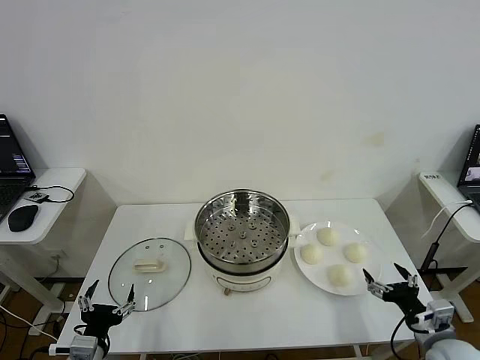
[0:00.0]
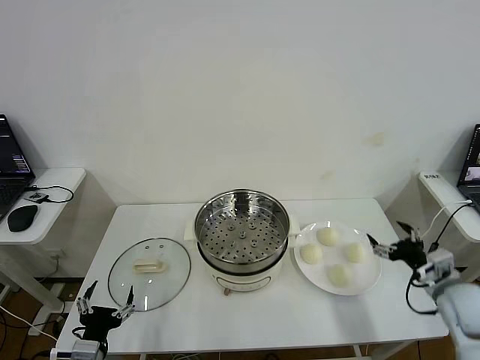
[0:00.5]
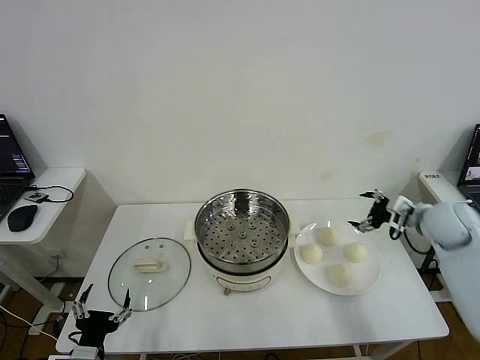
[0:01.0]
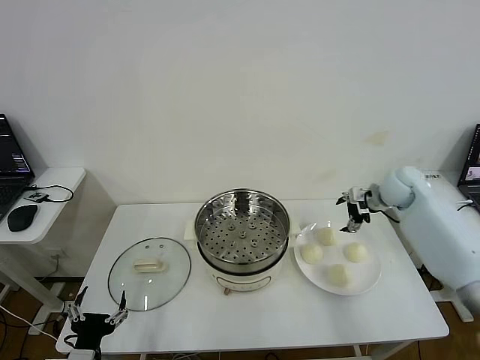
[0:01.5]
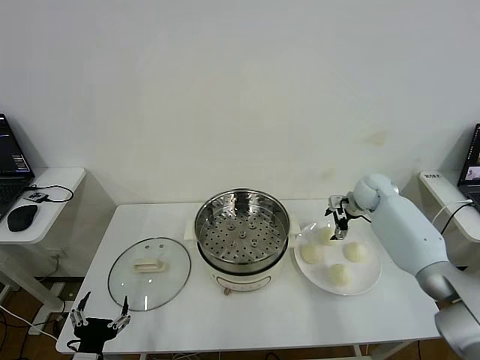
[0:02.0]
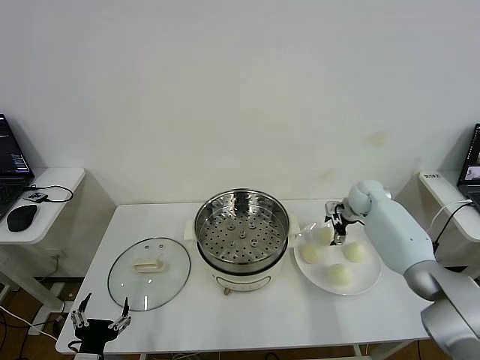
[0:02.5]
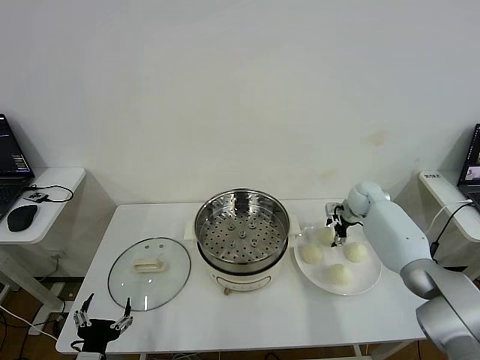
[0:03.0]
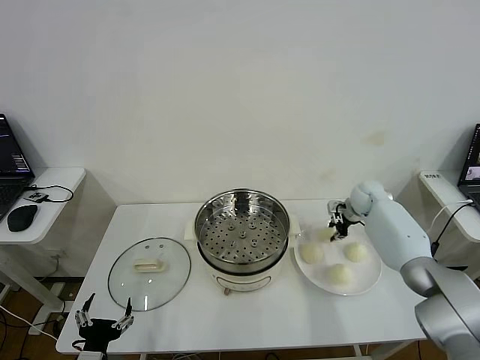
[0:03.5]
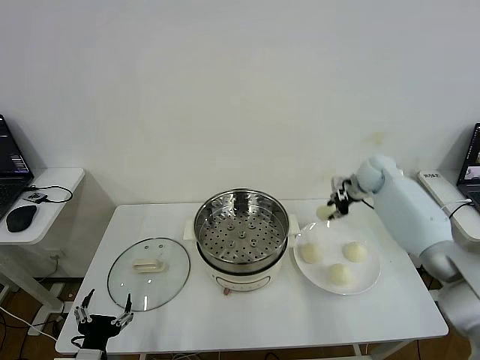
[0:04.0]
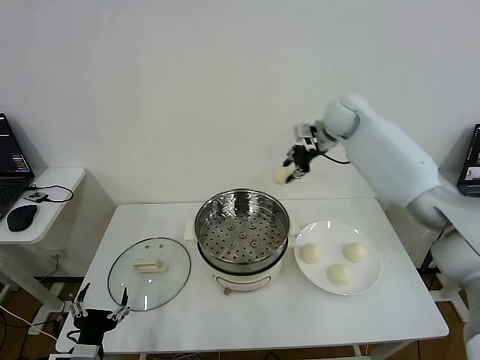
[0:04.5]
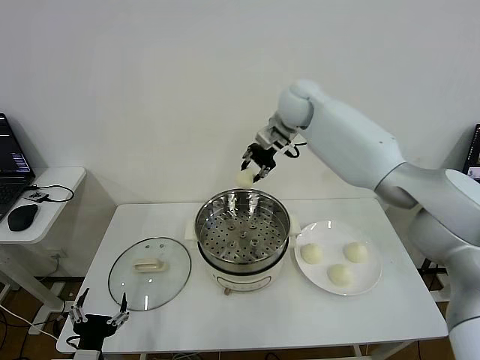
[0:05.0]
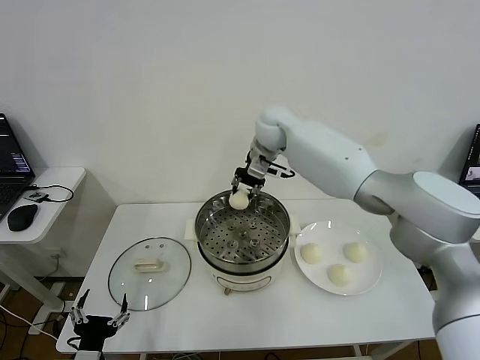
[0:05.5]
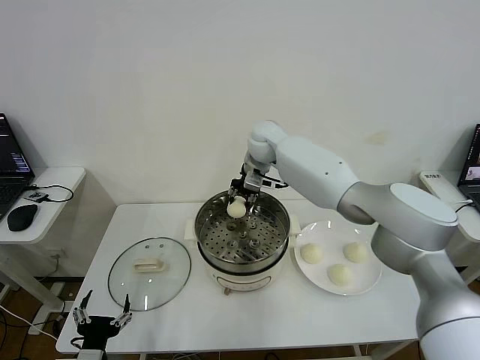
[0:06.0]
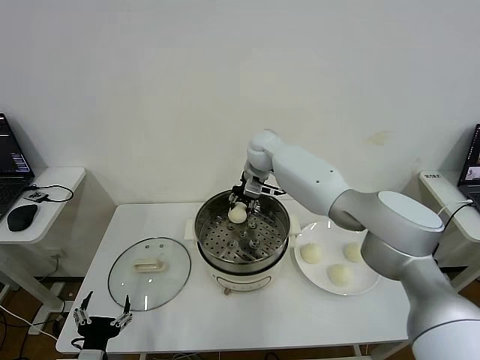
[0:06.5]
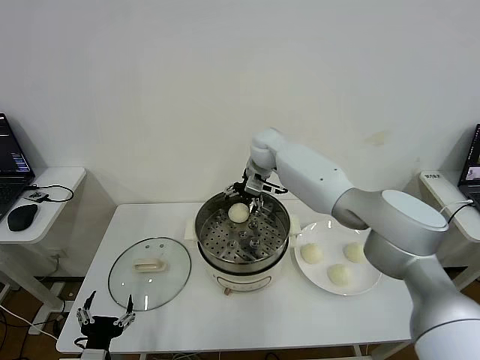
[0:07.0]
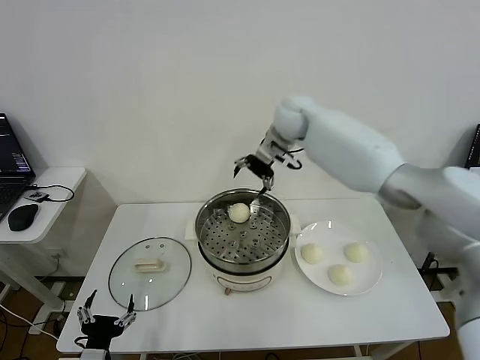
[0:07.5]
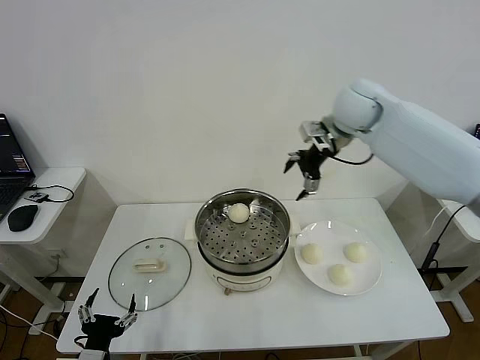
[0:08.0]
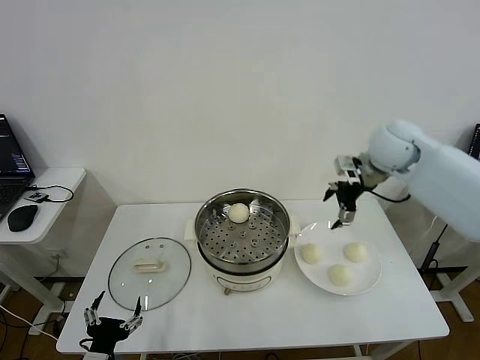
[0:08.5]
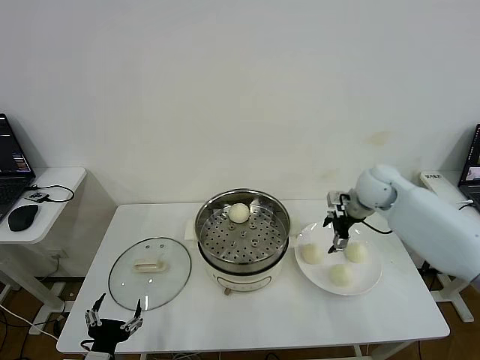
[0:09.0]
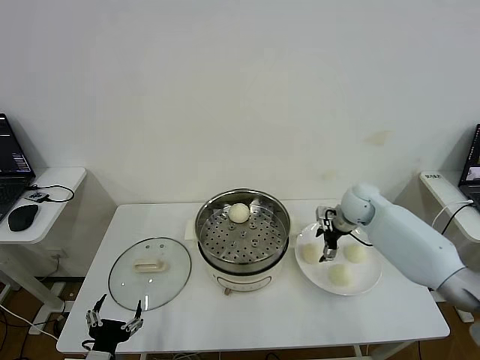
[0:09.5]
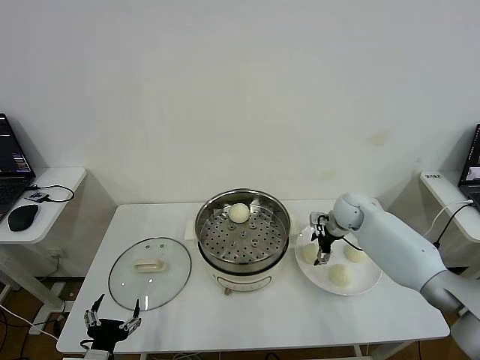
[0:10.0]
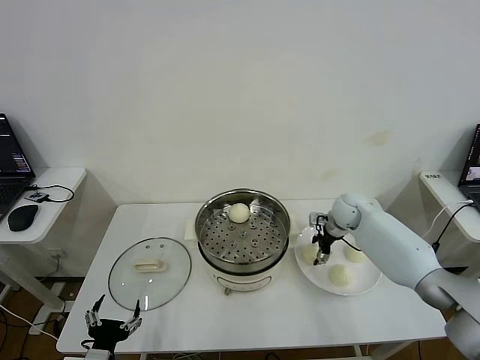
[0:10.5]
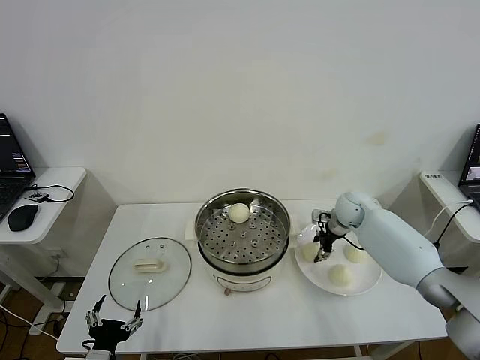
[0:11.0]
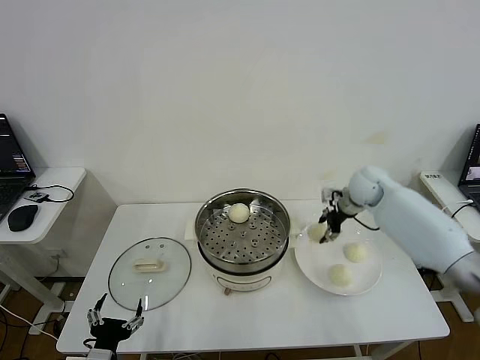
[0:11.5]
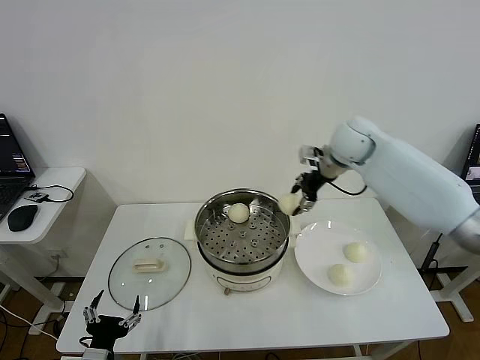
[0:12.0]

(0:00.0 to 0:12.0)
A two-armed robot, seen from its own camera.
Step, 0:00.0 - 0:03.0: Grasp the baozi in the plate with right gripper.
Step, 0:04.0 - 0:06.5: Place the baozi on the steamer with right gripper.
Step, 0:07.0 - 0:10.5: Grasp the baozi in the plate with right gripper.
0:02.0 - 0:04.0: The right gripper moves upward, some 10 cm, and closes up.
0:04.0 - 0:06.0: The right gripper heads to the left, covering approximately 25 cm.
0:06.0 - 0:08.0: The right gripper heads to the right and upward, covering approximately 25 cm, and opens up.
0:08.0 - 0:10.0: The right gripper moves downward, approximately 30 cm.
0:10.0 - 0:12.0: The right gripper shifts roughly 20 cm upward, and closes up.

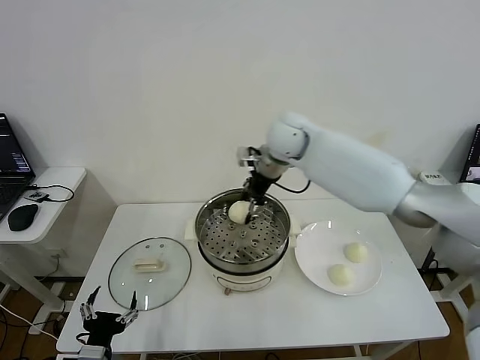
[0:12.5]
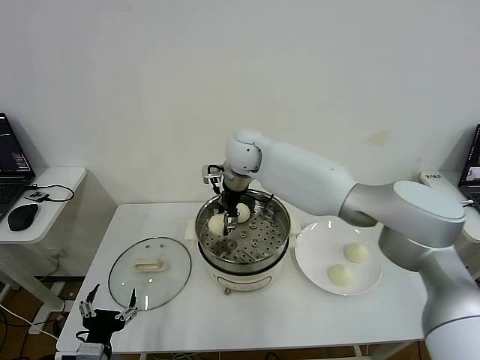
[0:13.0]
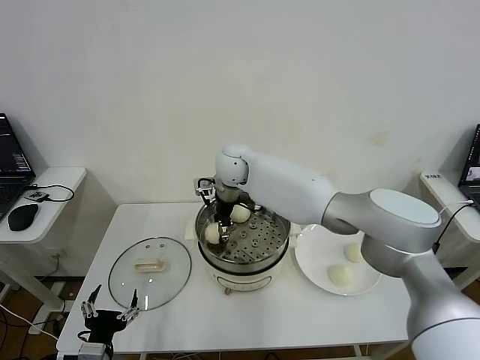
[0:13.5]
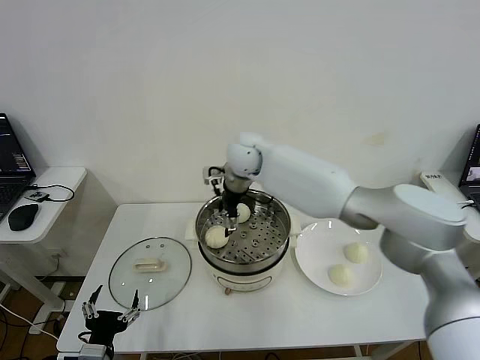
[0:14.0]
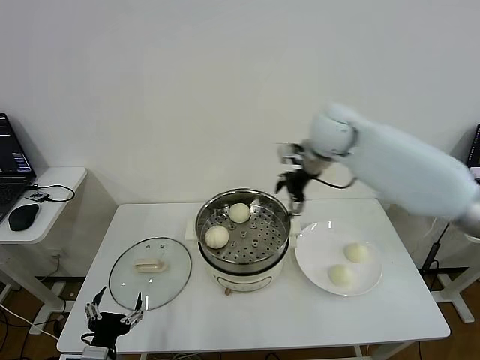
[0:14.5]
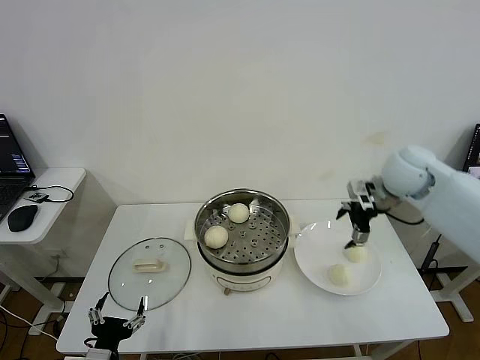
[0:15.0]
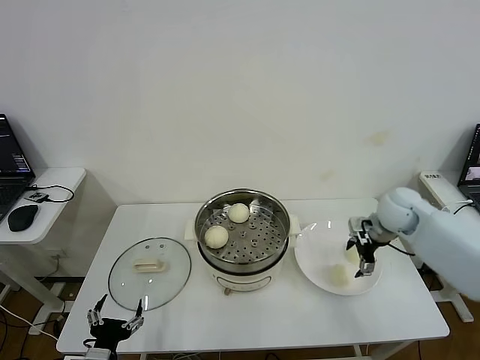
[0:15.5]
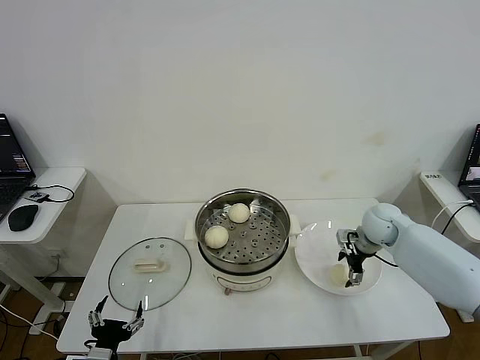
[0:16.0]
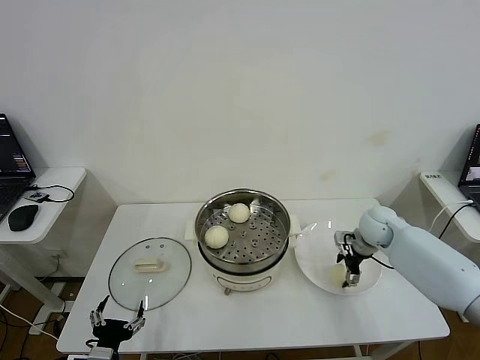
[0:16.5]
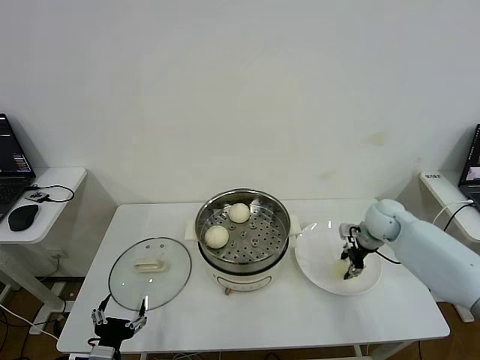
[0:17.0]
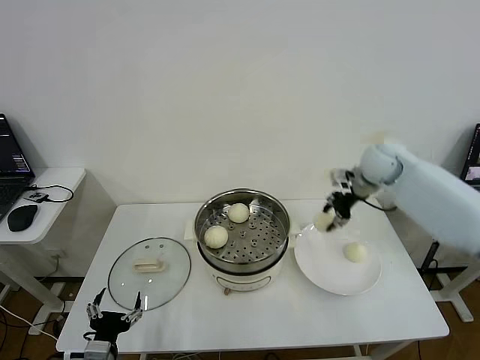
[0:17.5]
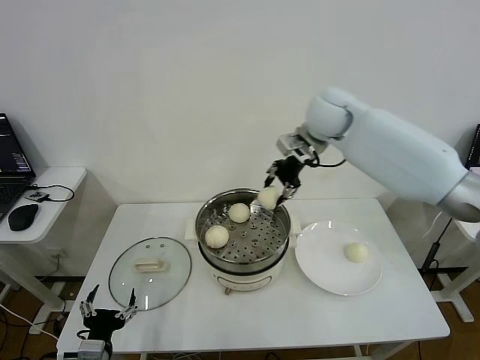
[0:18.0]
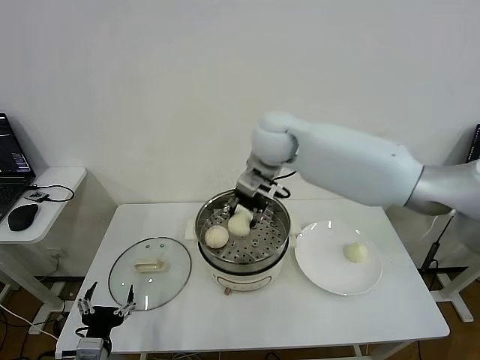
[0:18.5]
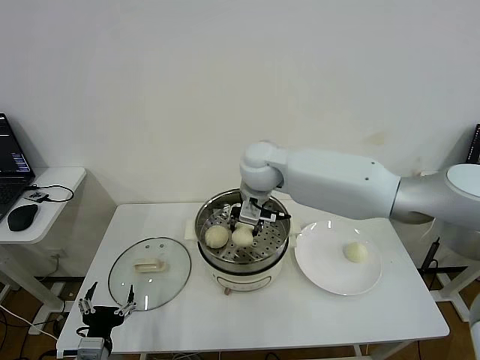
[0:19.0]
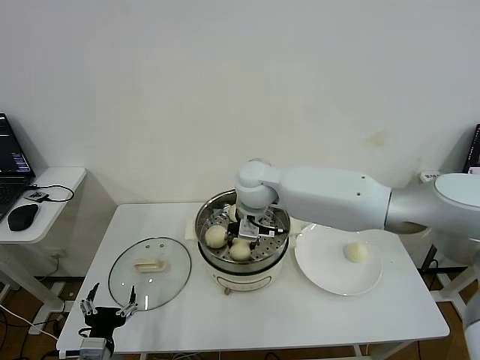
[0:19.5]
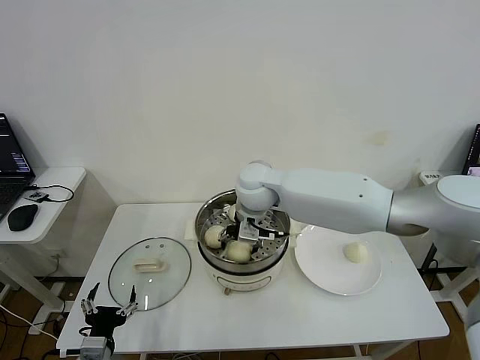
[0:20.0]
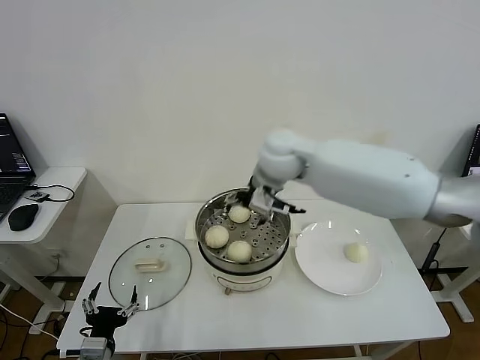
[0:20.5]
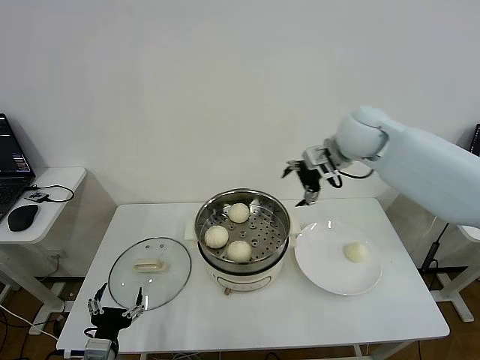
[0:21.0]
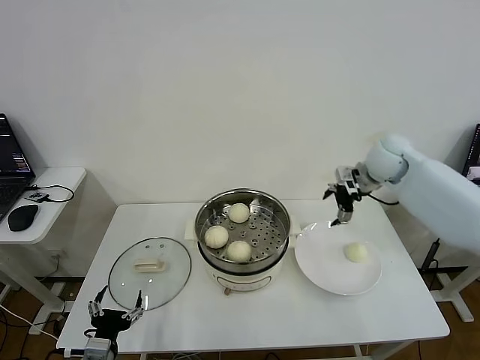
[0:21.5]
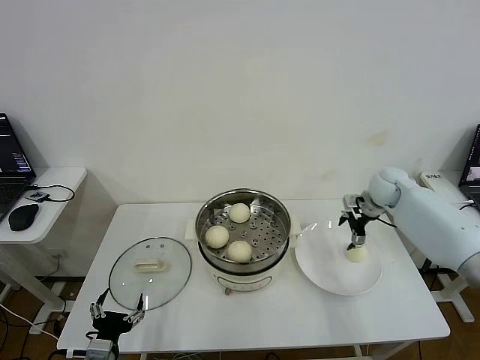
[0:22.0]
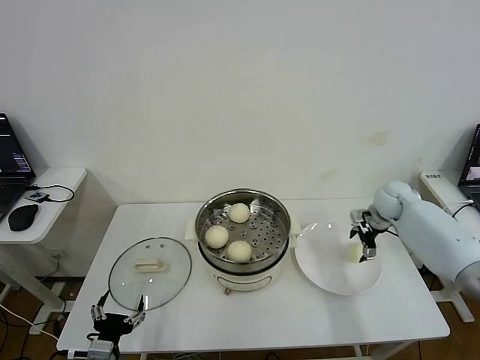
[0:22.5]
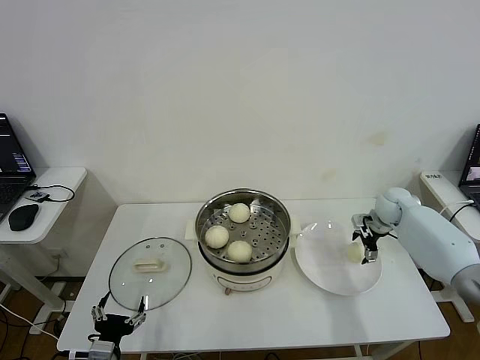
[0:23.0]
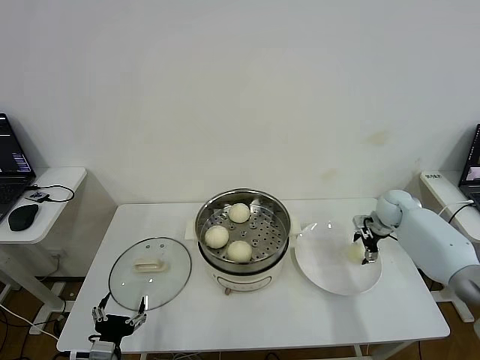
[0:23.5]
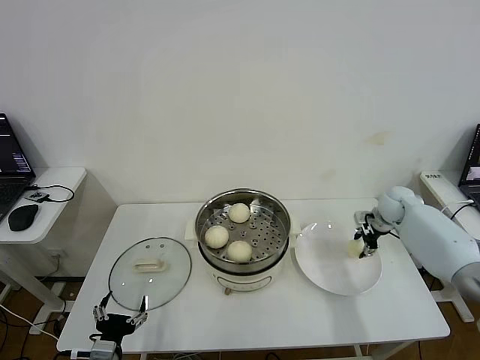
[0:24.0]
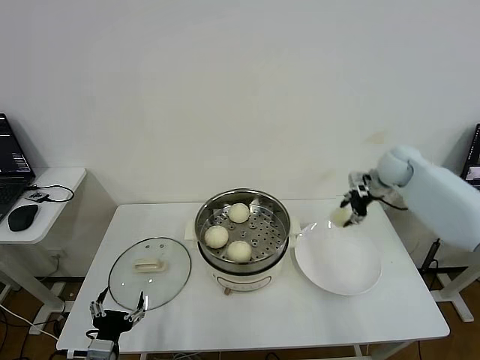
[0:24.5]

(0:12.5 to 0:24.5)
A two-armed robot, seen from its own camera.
Step, 0:14.0 - 0:16.5: Grasp the baozi in the plate with right gripper.
Step, 0:17.0 - 0:20.0: Place the baozi on the steamer with right gripper.
Step, 0:20.5 - 0:23.5: Grasp the baozi in the plate with right gripper.
0:12.5 - 0:14.5: The right gripper is displaced to the right by roughly 15 cm, and opens.
0:14.5 - 0:16.5: The right gripper moves downward and to the right, about 30 cm.
0:16.5 - 0:18.5: The right gripper travels to the left and upward by approximately 35 cm, and closes up.
0:18.5 - 0:20.5: The right gripper goes downward and returns, about 10 cm each way, and opens.
0:20.5 - 0:22.5: The right gripper shifts about 35 cm to the right and downward.
0:22.5 - 0:24.5: The right gripper travels upward by approximately 10 cm, and closes up.

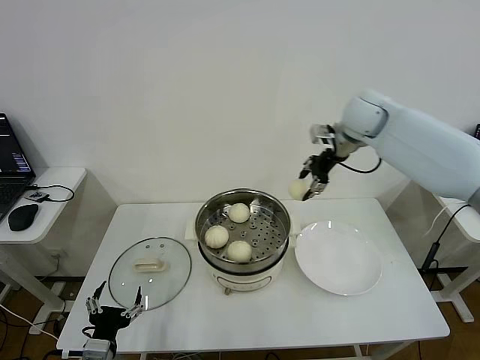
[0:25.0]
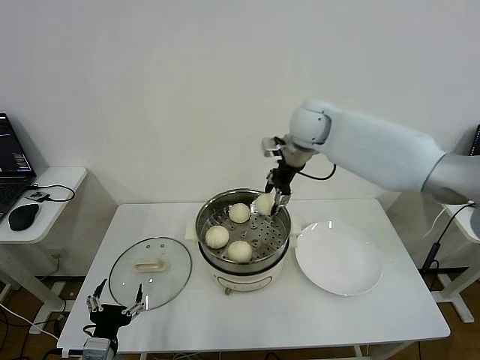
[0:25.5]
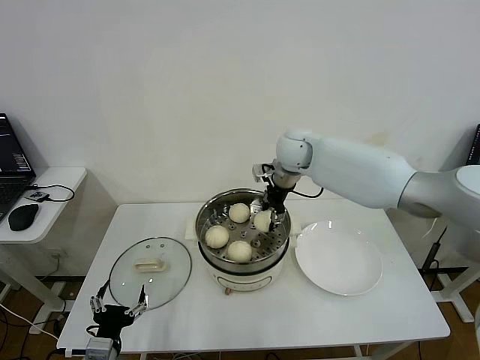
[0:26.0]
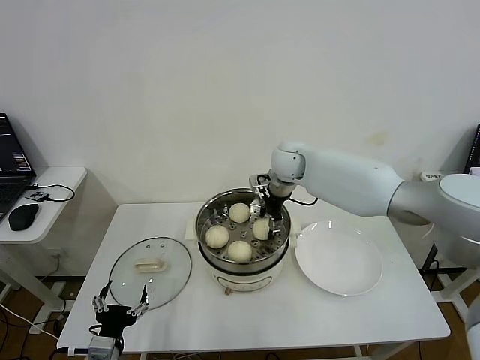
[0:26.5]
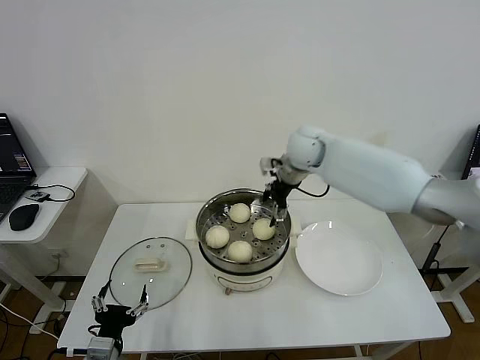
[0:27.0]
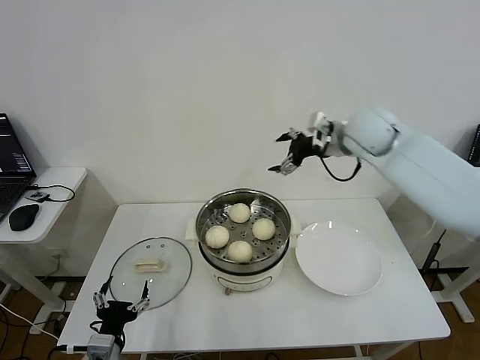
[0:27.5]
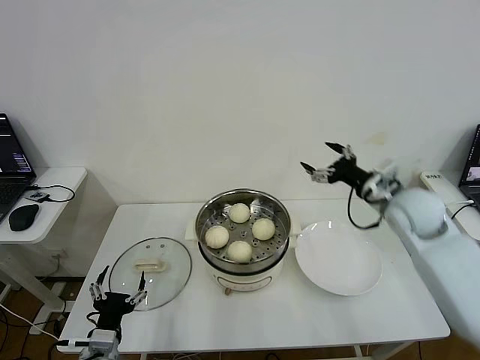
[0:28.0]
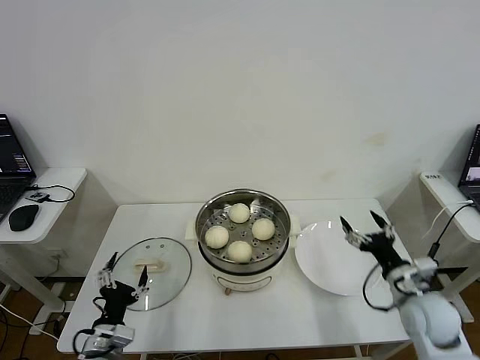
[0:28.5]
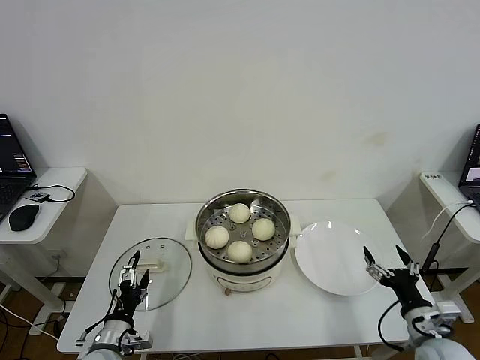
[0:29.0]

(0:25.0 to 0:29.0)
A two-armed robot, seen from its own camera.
Step, 0:25.0 - 0:26.5: Place the baozi on the steamer with right gripper.
0:25.0 - 0:27.0: The right gripper heads to the left and downward, covering some 15 cm, and opens.
0:27.0 - 0:29.0: The left gripper goes about 5 cm forward, while the right gripper travels backward, to the right and downward by approximately 50 cm.
